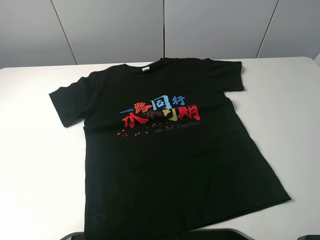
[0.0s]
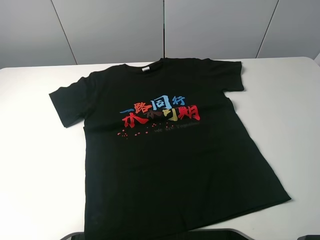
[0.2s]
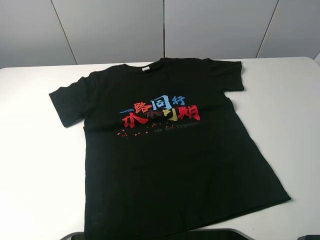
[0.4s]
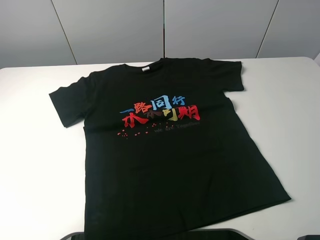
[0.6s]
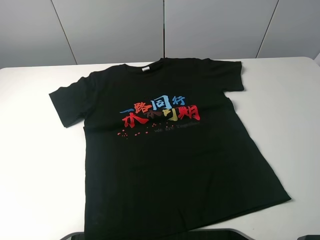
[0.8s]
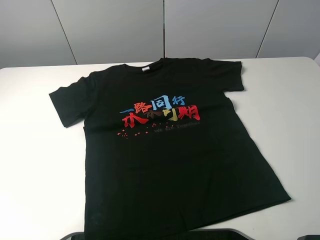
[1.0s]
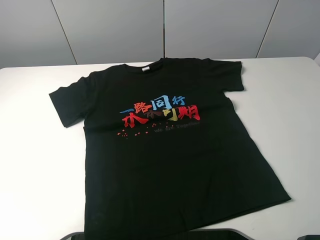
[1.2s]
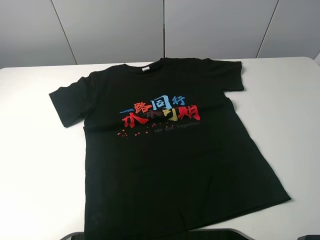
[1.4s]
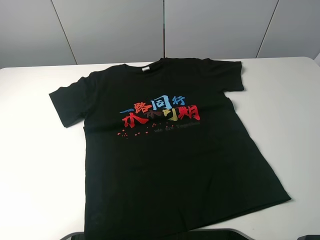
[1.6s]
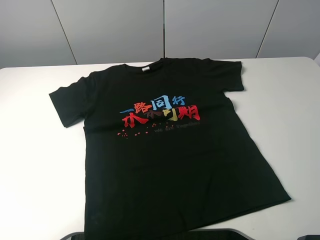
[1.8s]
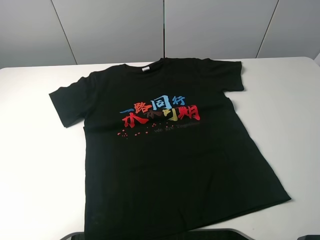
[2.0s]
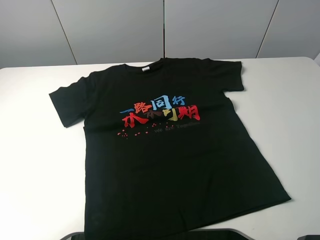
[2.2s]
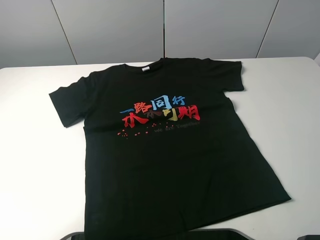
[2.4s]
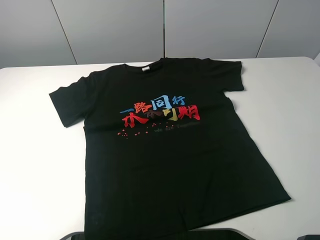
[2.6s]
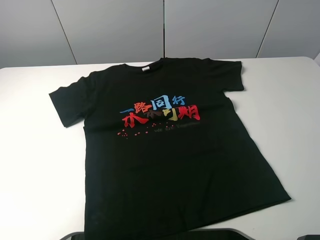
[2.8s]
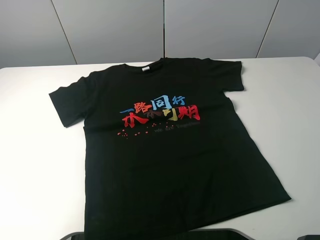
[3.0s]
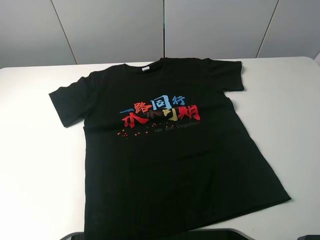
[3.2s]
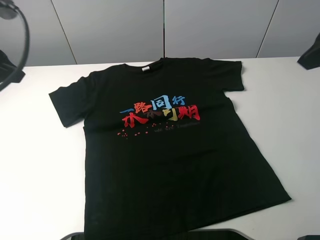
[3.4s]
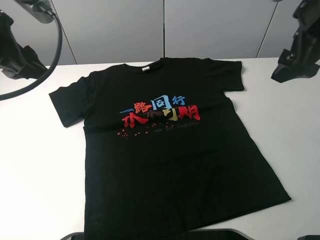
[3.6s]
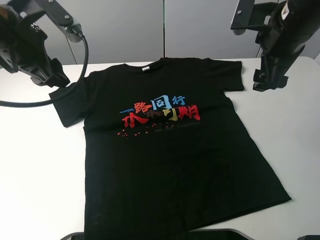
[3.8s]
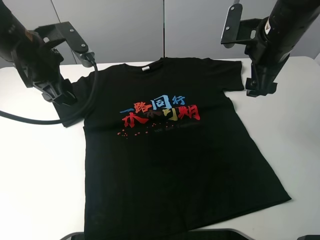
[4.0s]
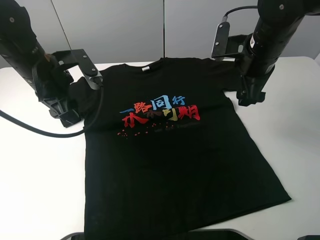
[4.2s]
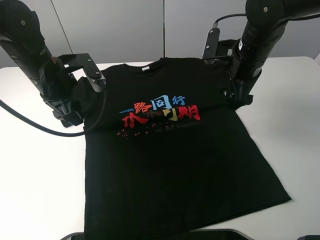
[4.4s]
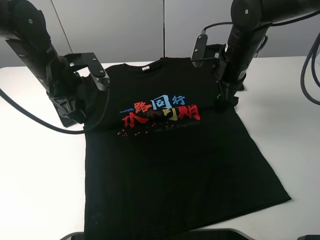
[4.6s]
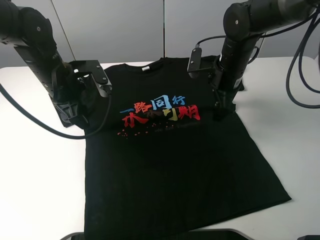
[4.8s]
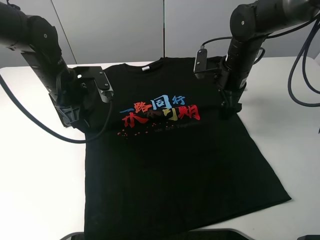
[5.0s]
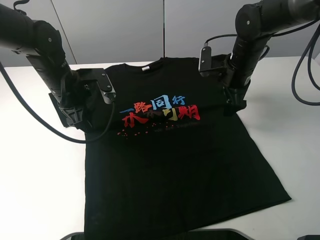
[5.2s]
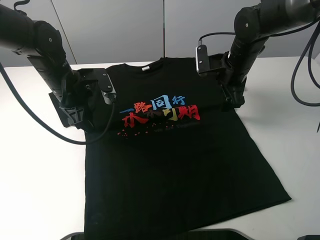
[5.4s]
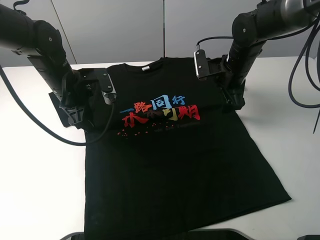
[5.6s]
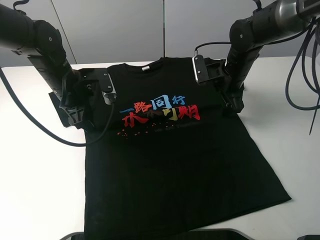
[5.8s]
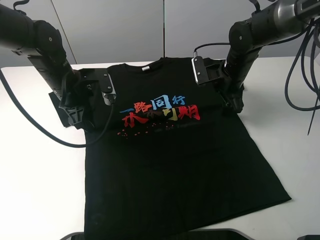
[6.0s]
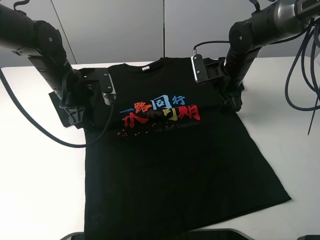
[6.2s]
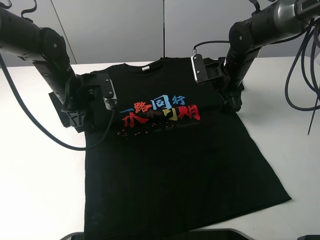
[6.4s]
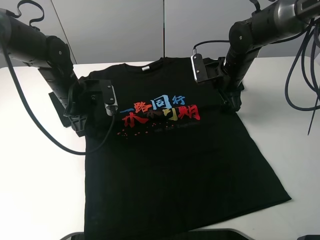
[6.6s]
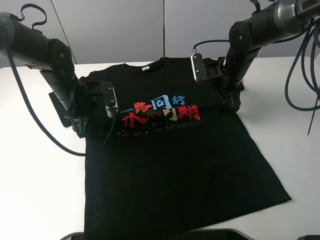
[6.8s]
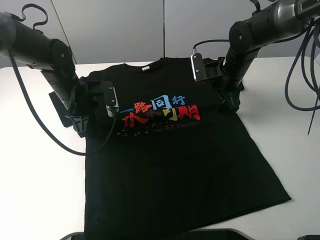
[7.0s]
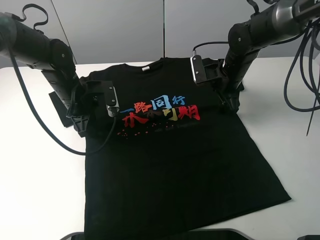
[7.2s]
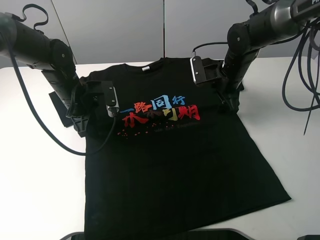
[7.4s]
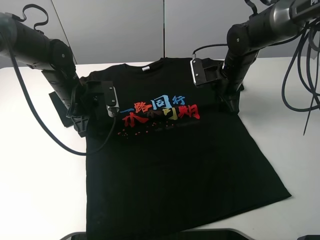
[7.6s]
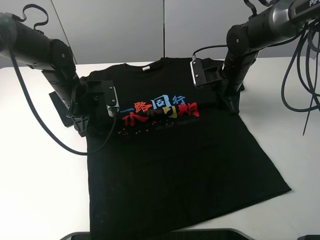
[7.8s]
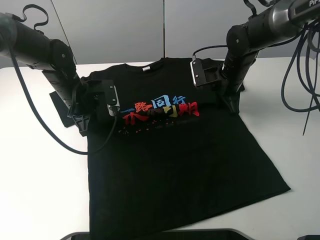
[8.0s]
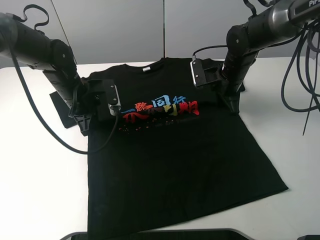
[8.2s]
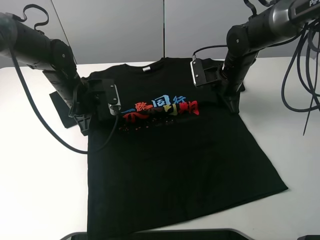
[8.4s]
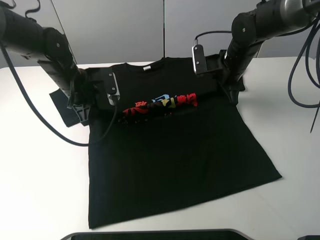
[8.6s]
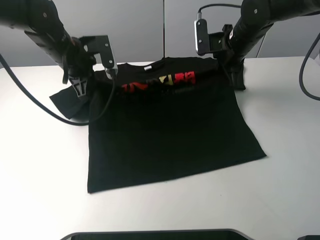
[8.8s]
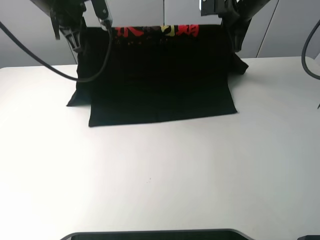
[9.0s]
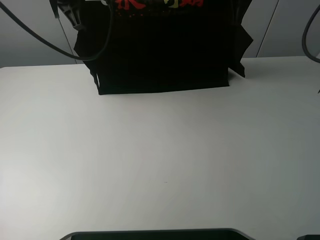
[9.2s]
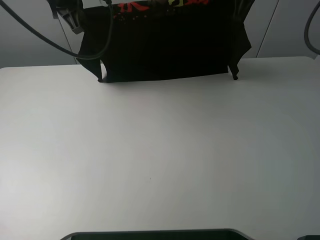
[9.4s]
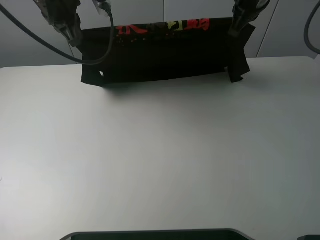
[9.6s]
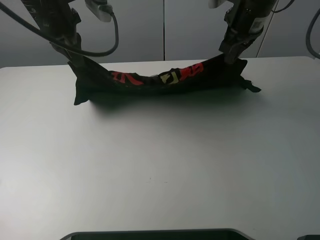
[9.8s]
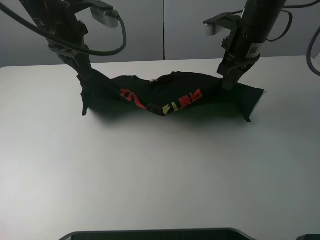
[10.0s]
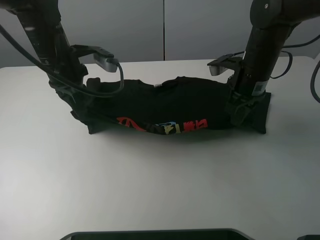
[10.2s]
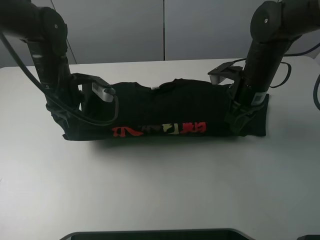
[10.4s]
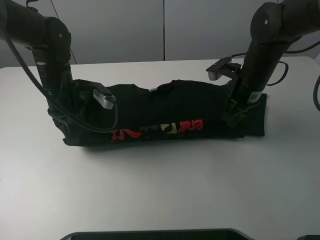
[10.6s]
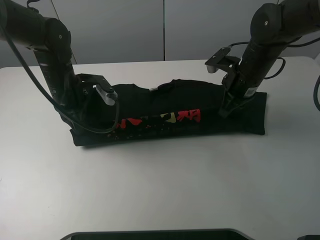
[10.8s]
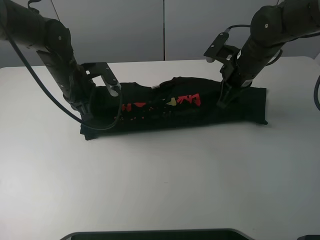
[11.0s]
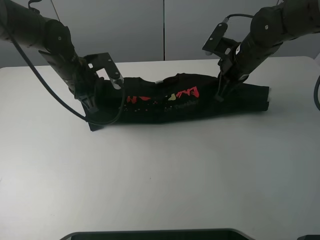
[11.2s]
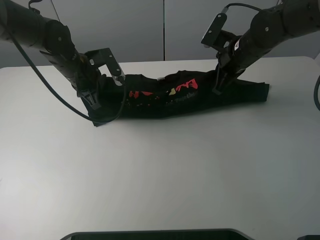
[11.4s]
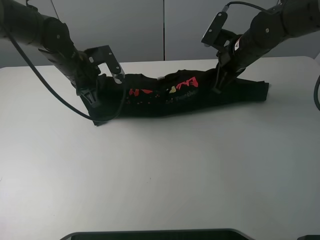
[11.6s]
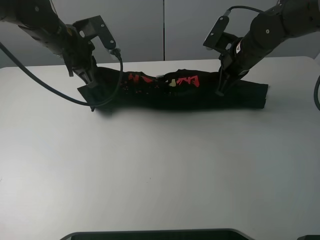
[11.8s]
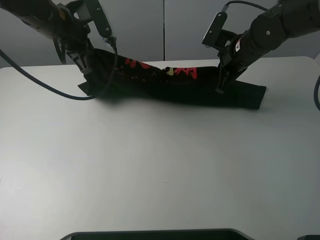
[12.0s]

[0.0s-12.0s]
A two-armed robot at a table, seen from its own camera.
Task of the whole recording: fold the clothes on the table.
Step, 0.0s to 7.6s: Lift the black T-shirt with the left gripper.
3.0s to 4.4s: The right gripper goes some 35 cm forward, downward and to the left, while the left gripper shifts about 25 cm forward, downward and to the right.
4.4s to 6.0s: The right gripper travels downward by roughly 5 cm.
6.0s to 7.6s: The right gripper closes.
7.6s to 9.0s: Both grippers move upward, roughly 15 cm. The right gripper closes its fingers. The left gripper closes its fingers.
9.0s to 10.4s: The left gripper travels downward and backward by some 15 cm; the right gripper goes some 15 cm backward and downward.
10.4s to 12.0s: The left gripper moves upward and forward, roughly 10 cm. The right gripper travels forward by about 5 cm.

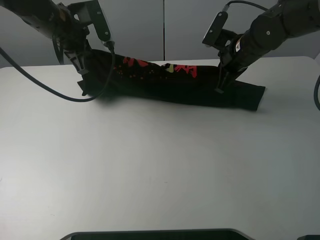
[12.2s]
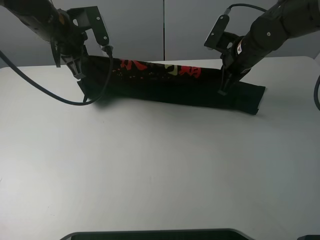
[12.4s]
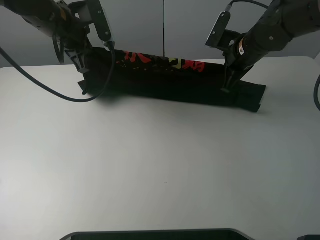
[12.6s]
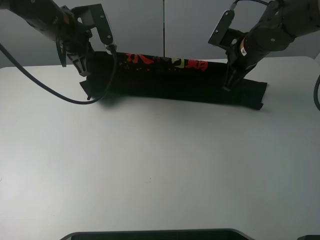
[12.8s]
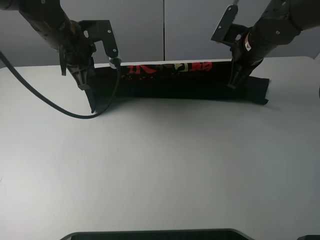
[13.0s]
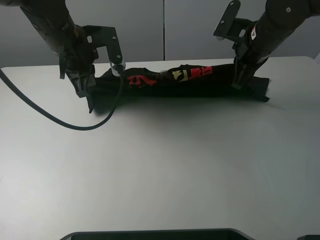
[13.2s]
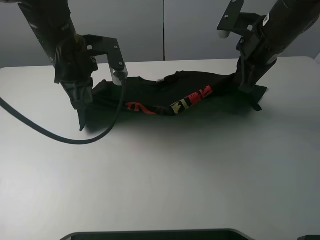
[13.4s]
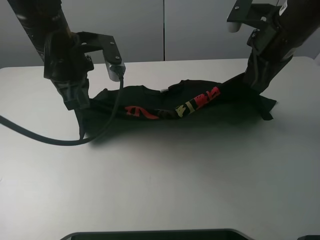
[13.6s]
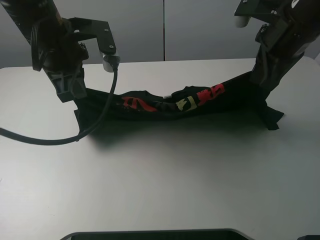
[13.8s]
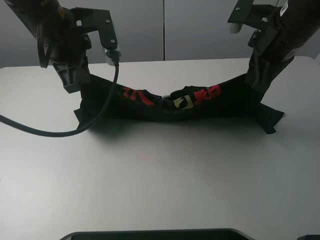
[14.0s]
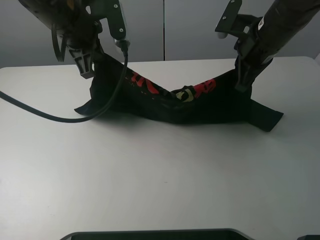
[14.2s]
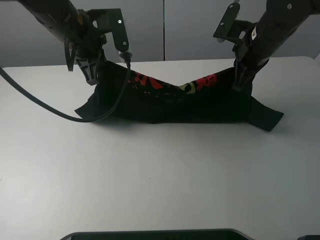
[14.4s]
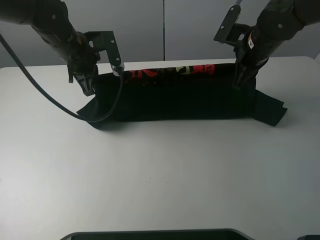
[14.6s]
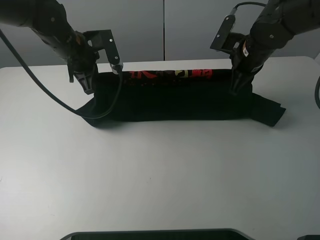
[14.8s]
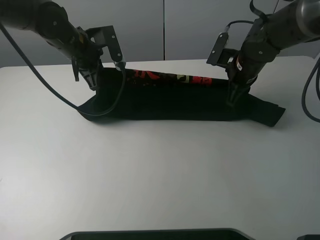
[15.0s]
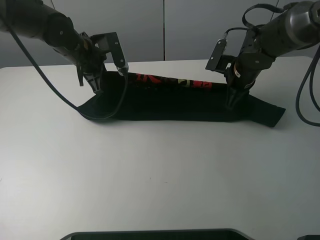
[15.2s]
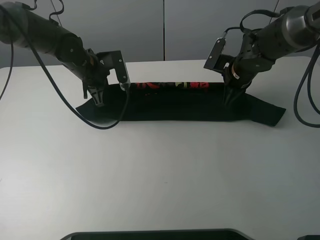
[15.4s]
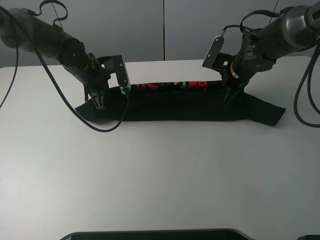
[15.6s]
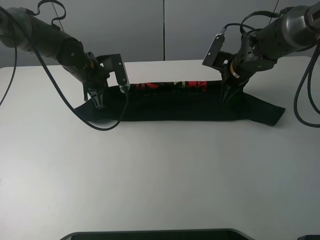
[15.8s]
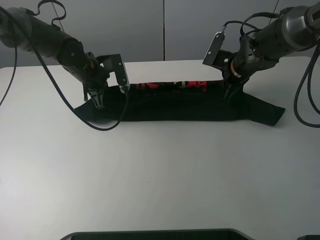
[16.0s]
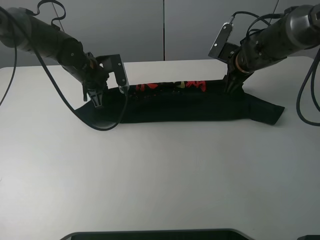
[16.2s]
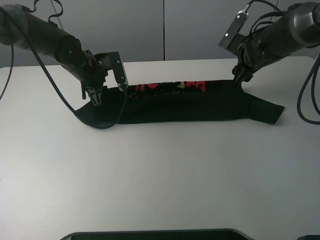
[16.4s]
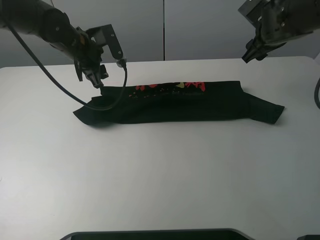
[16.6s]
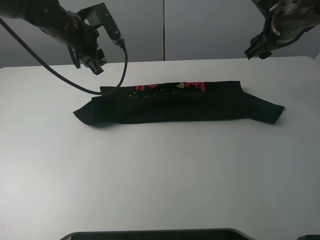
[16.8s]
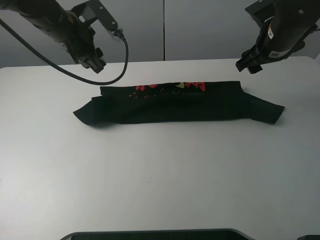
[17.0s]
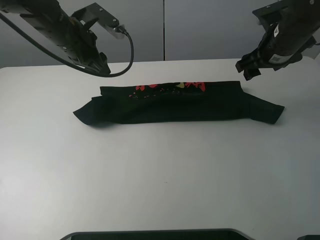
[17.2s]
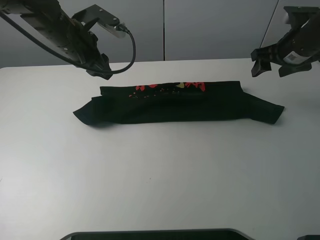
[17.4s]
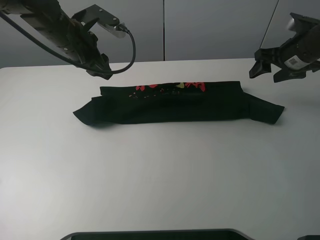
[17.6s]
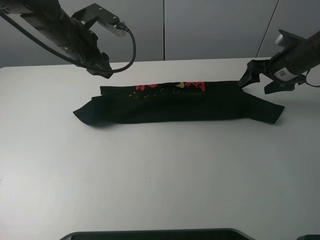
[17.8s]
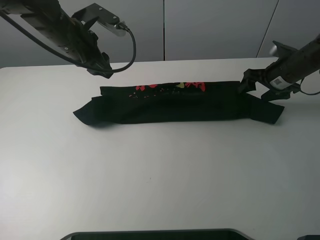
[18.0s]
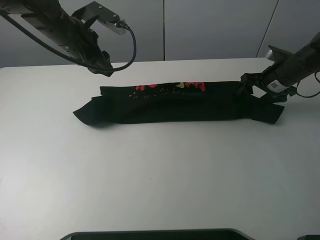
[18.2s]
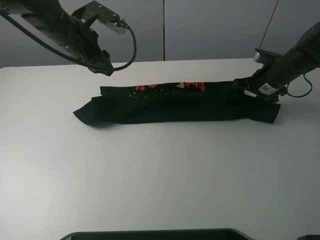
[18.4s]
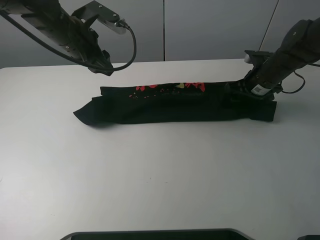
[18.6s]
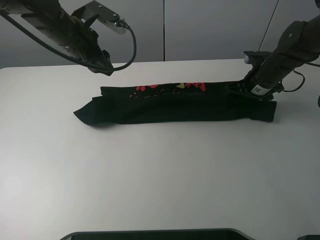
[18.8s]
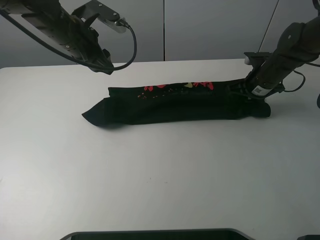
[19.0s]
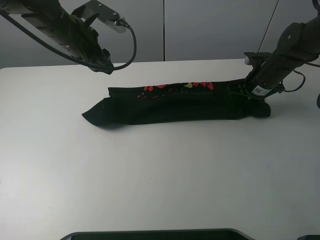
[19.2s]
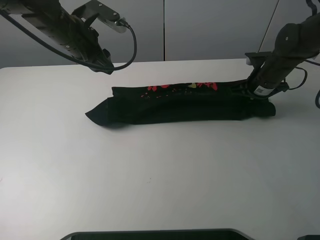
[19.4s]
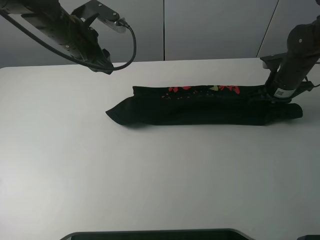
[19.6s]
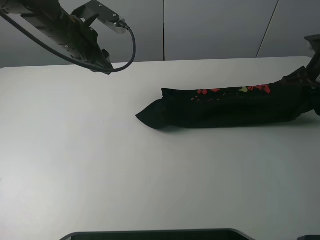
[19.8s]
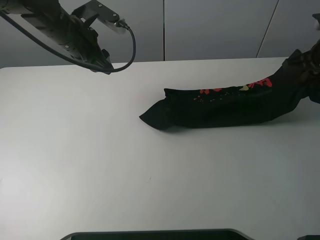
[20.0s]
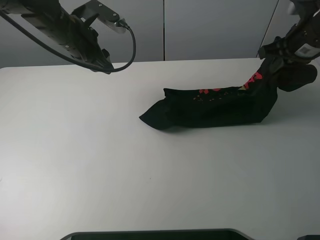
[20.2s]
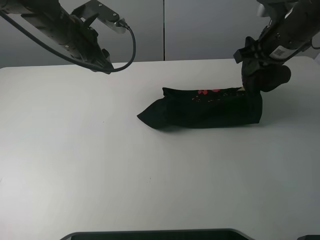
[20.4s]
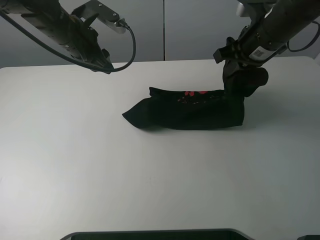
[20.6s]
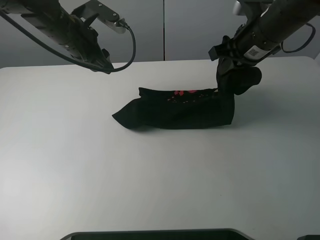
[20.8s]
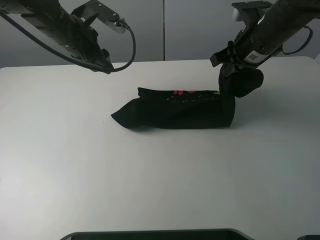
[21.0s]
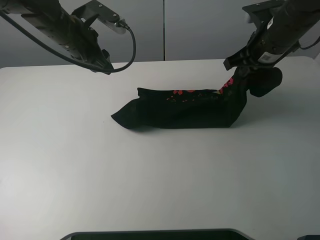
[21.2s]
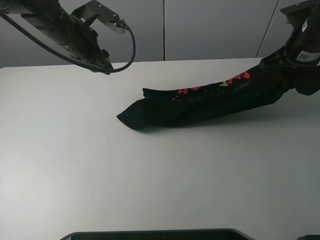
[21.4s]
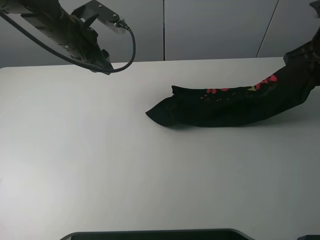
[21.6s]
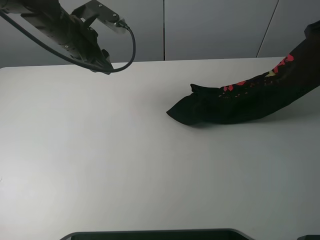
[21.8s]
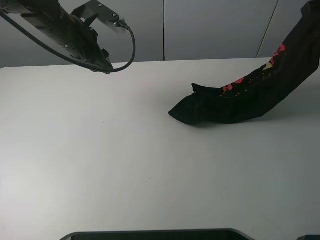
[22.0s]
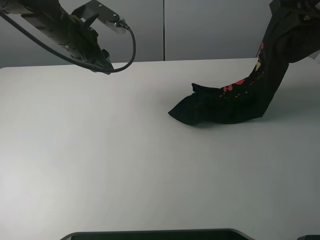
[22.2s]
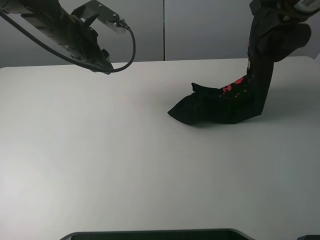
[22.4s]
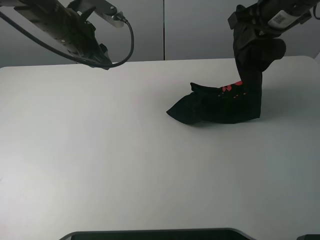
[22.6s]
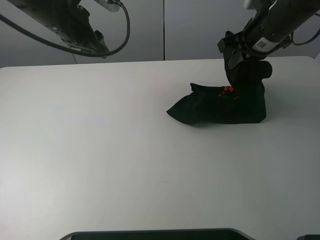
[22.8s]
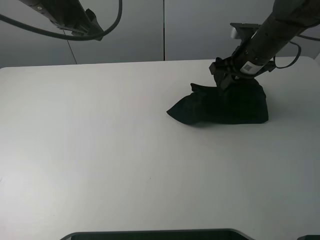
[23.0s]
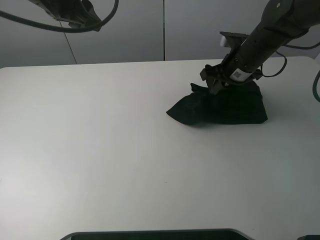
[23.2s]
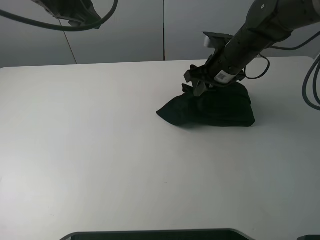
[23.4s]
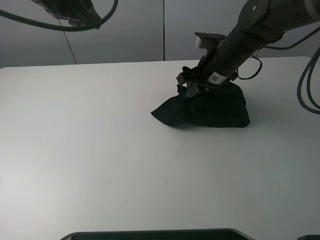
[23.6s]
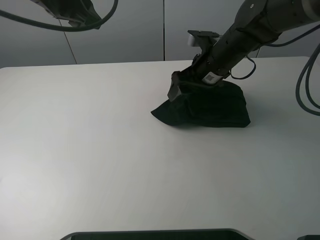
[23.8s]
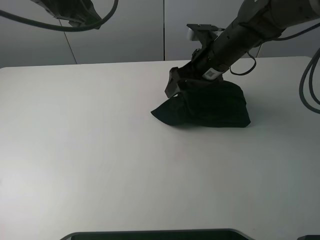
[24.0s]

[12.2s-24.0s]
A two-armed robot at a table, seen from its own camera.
Task of the whole recording: fold the clothes on the table.
Step, 12.2s to 16.2s: Fold the black T-shirt downward with the left gripper.
Step, 16.6s to 19.0s: Grasp the black T-shirt with the right gripper.
12.2s to 13.6s: The right gripper is displaced upward and backward by some 15 cm, while the left gripper goes about 10 cm backward.
13.6s to 15.2s: The right gripper travels downward and forward by roughly 15 cm. Meanwhile the left gripper moves forward and downward, some 15 cm.
15.2s to 16.6s: The right gripper is displaced upward by approximately 10 cm, and opens up, while the left gripper opens.
16.6s to 18.2s: The right gripper shifts some 10 cm downward and to the right.
18.2s to 19.6s: The right gripper closes.
19.6s to 21.0s: The right gripper goes approximately 15 cm to the left and upward.
21.0s to 22.6s: The right gripper moves upward, roughly 5 cm, and travels to the right and back again, some 15 cm each way.
22.6s to 24.0s: The right gripper heads downward and to the left, covering about 10 cm, and opens its fingers, while the left gripper moves upward, about 10 cm.
